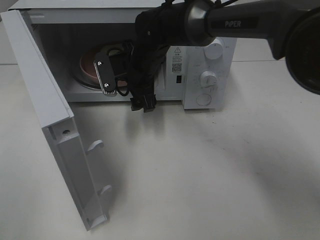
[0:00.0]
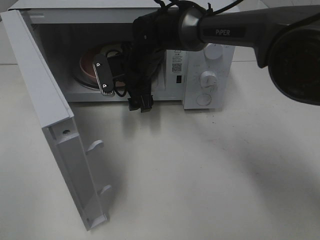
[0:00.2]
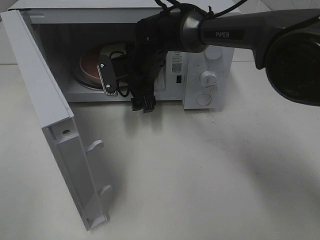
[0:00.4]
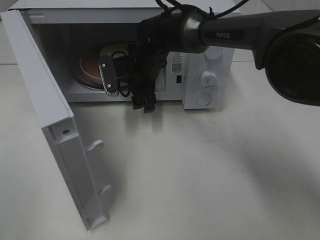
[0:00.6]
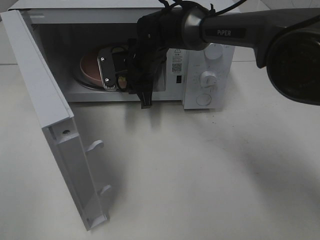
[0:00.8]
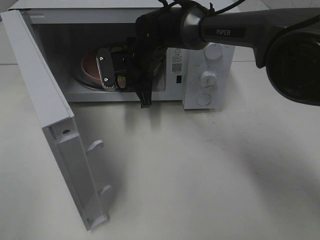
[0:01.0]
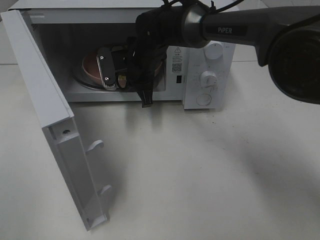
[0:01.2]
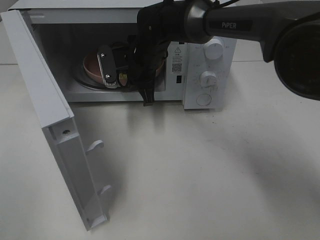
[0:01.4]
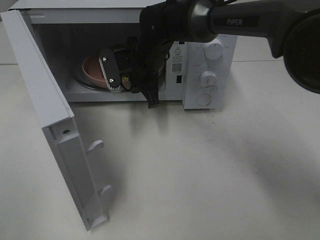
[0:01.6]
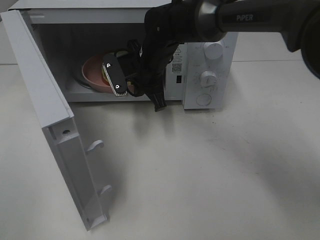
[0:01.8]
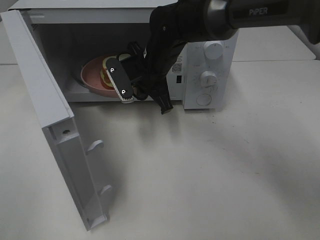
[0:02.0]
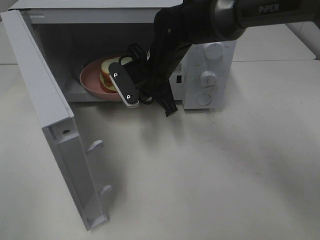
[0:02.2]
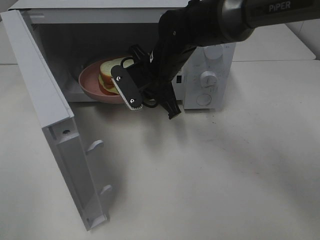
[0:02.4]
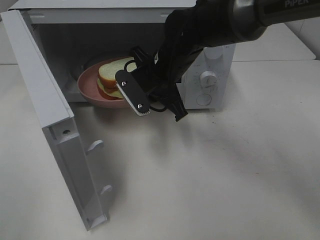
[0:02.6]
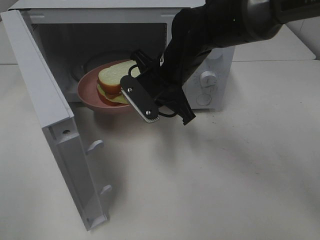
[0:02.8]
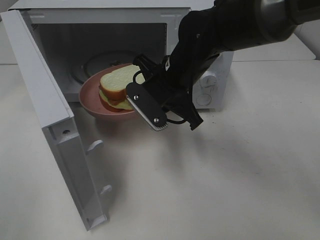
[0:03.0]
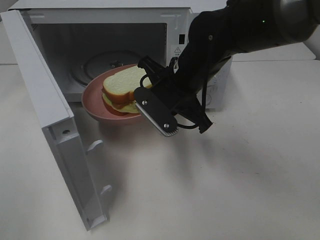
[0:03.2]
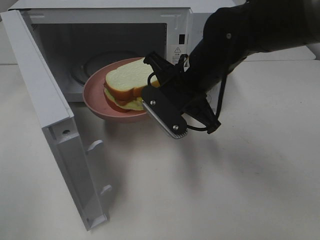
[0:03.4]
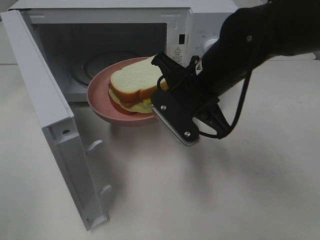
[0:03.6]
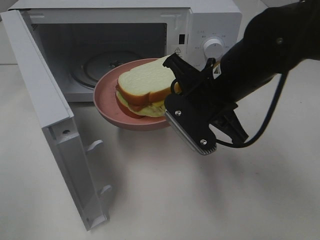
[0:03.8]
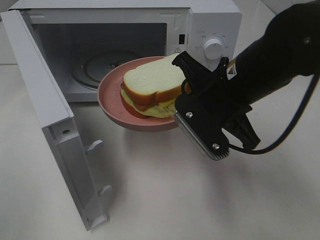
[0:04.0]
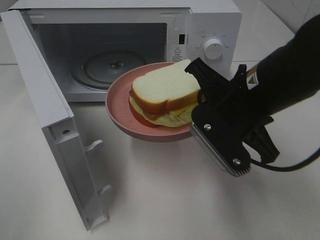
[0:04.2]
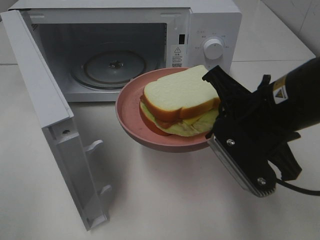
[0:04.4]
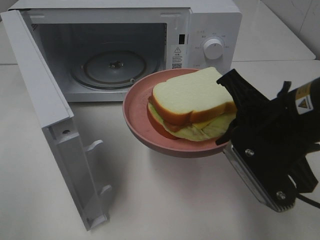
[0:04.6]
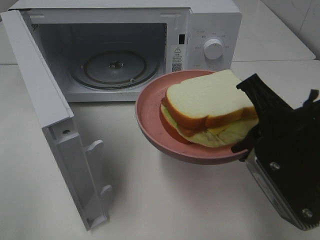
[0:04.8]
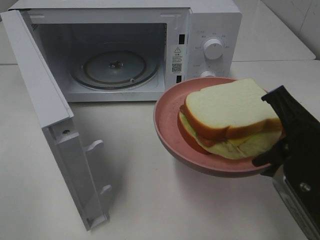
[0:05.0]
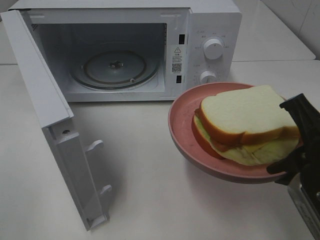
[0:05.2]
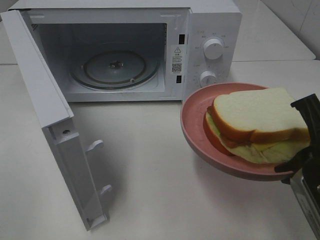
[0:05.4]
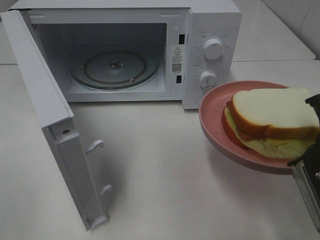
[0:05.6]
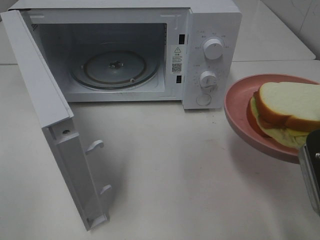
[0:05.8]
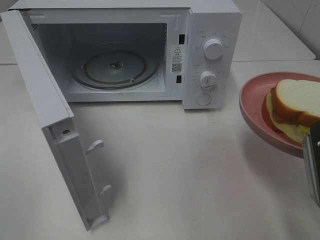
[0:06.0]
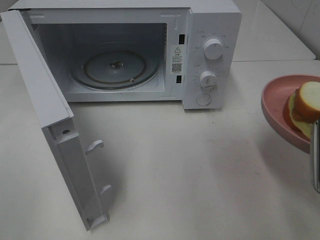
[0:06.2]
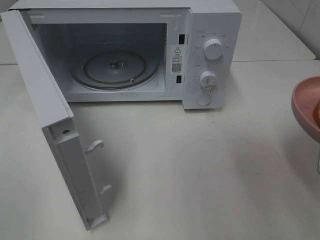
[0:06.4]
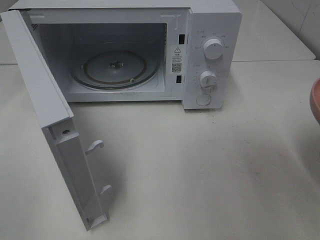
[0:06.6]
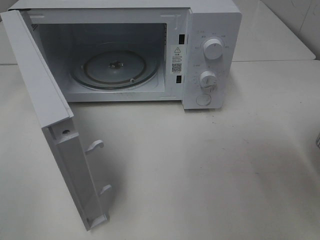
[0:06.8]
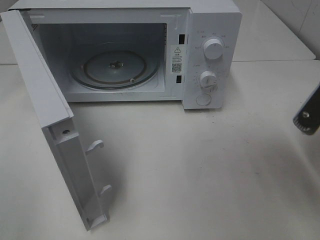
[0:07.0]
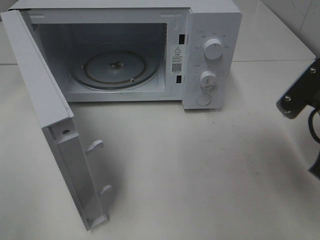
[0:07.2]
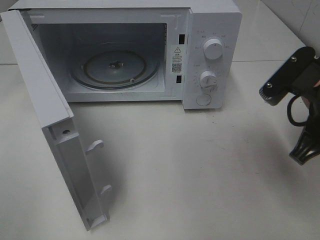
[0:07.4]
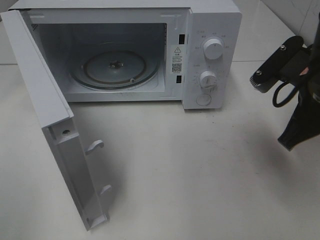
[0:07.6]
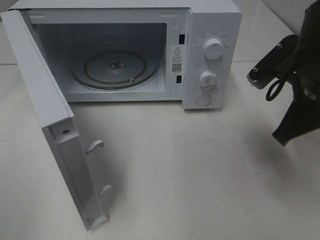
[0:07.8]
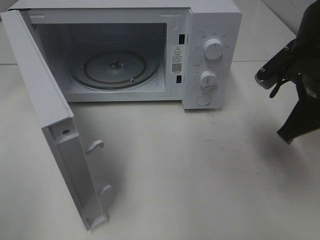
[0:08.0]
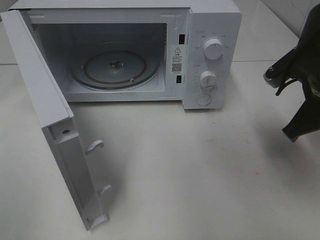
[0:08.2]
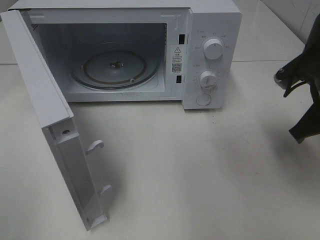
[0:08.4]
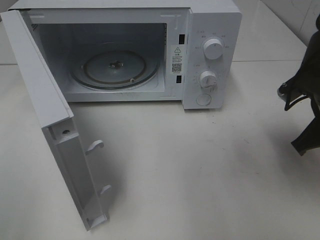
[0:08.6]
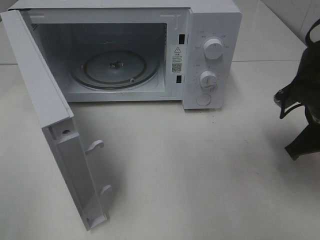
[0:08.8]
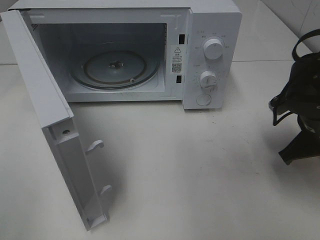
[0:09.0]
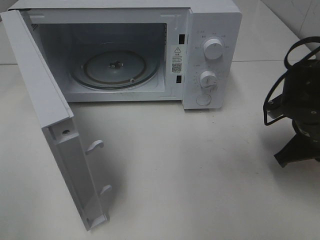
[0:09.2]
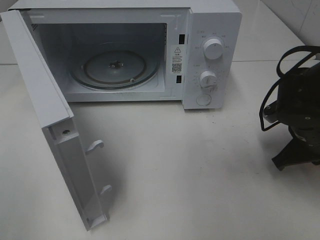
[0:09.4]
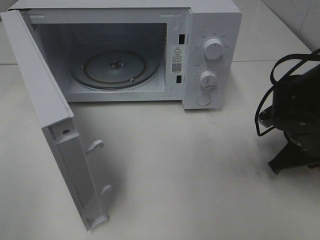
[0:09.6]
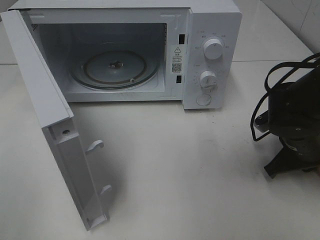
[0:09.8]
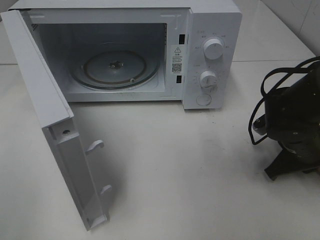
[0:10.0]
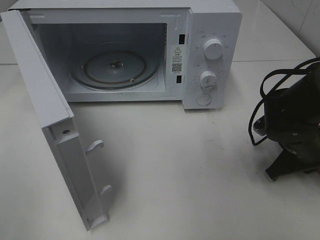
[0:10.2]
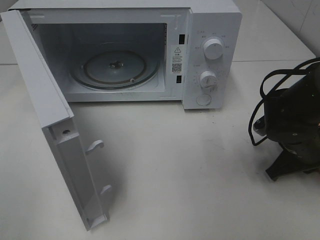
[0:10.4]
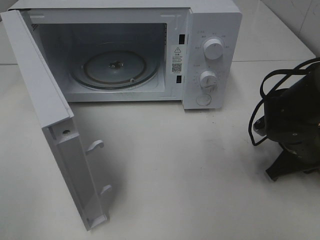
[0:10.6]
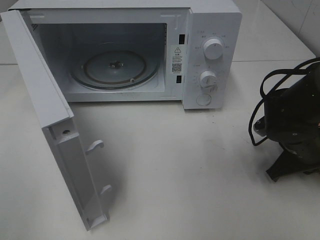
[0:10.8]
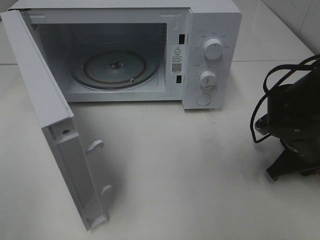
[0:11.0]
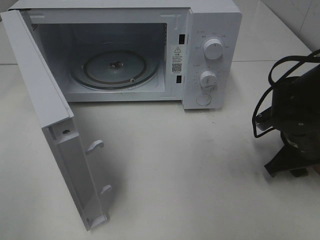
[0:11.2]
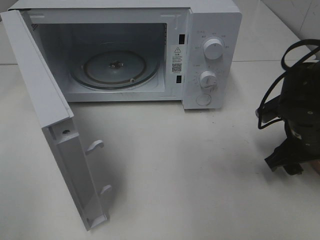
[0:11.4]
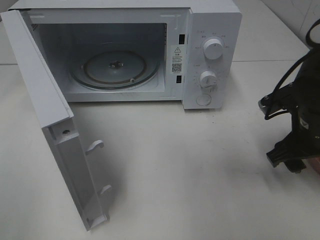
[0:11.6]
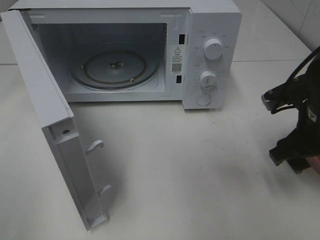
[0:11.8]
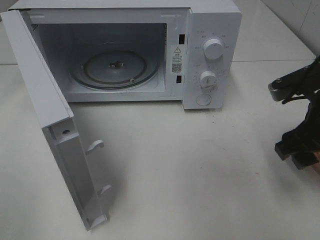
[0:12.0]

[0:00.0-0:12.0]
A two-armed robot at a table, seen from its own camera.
Task of the whole recording: Heat Sandwich.
0:00.0 to 0:01.6: The right gripper closes up.
0:01.6 to 0:03.0: The right gripper moves backward and to the right, some 10 cm.
0:03.0 to 0:04.4: The right gripper is displaced backward and to the right by roughly 15 cm.
0:04.4 to 0:06.0: The right gripper travels to the right and backward by roughly 10 cm.
0:06.0 to 0:07.6: The right gripper shifts some 10 cm forward.
0:07.6 to 0:09.0: The right gripper heads downward, covering roughly 10 cm.
0:09.0 to 0:10.4: The right gripper heads downward, covering some 5 cm.
0:10.4 to 0:12.0: The right gripper travels upward by roughly 10 cm, and opens up.

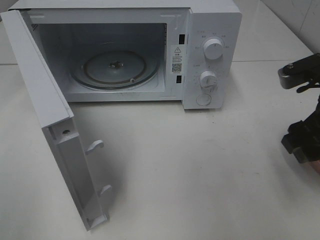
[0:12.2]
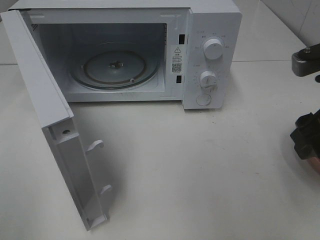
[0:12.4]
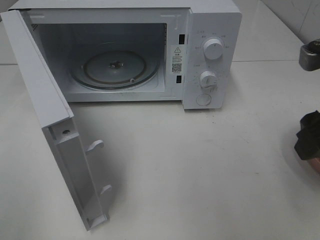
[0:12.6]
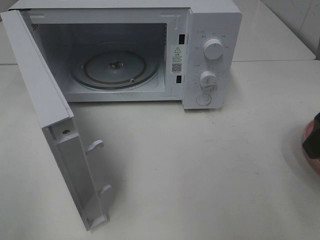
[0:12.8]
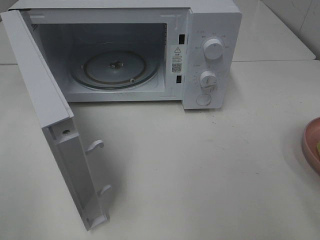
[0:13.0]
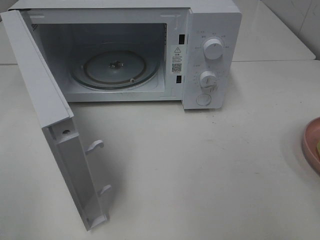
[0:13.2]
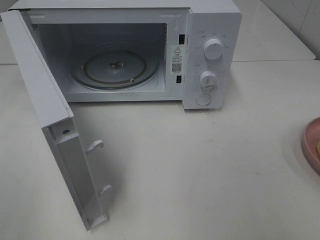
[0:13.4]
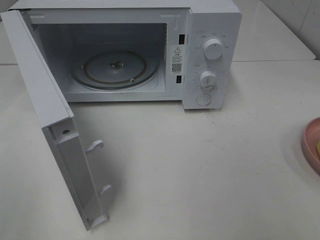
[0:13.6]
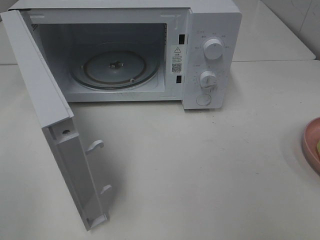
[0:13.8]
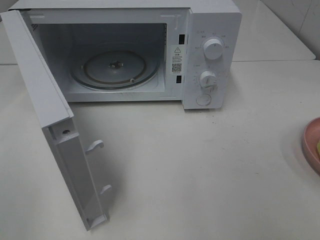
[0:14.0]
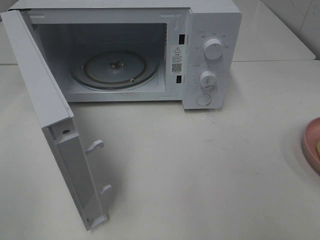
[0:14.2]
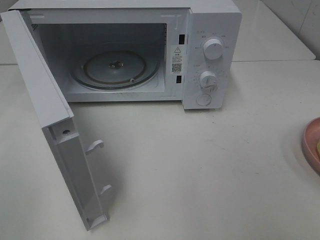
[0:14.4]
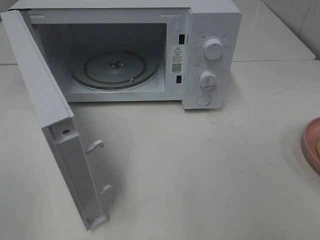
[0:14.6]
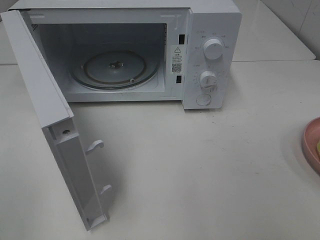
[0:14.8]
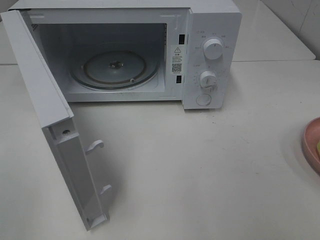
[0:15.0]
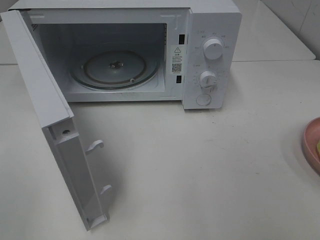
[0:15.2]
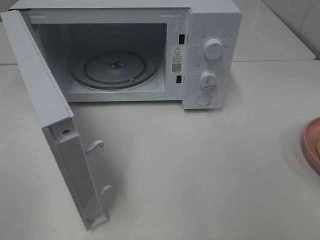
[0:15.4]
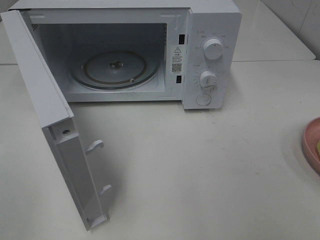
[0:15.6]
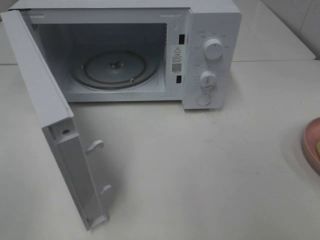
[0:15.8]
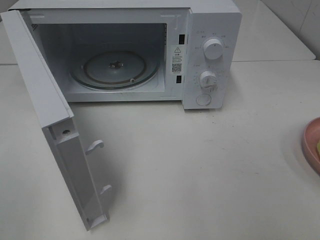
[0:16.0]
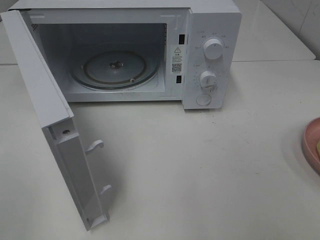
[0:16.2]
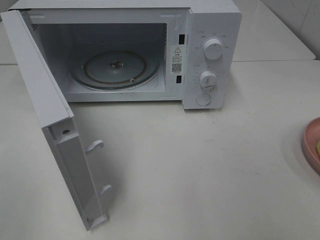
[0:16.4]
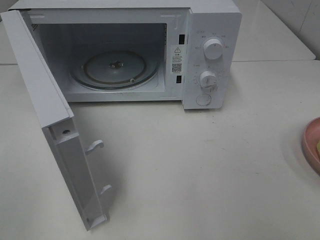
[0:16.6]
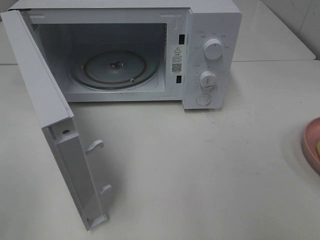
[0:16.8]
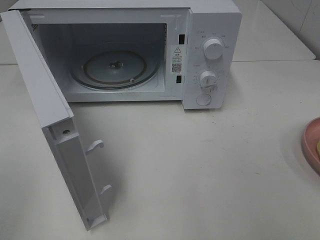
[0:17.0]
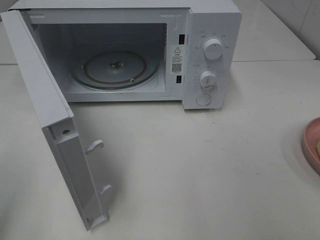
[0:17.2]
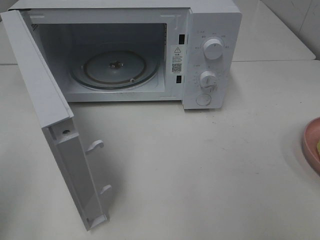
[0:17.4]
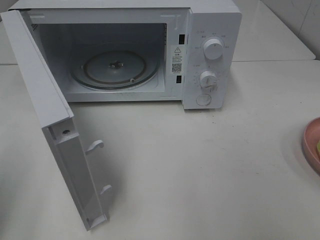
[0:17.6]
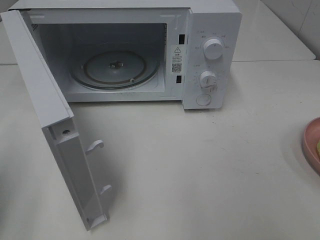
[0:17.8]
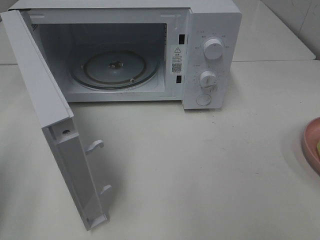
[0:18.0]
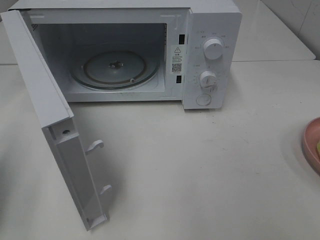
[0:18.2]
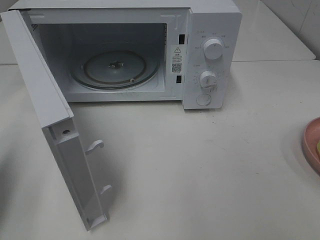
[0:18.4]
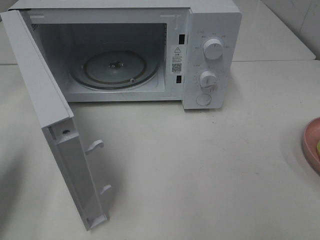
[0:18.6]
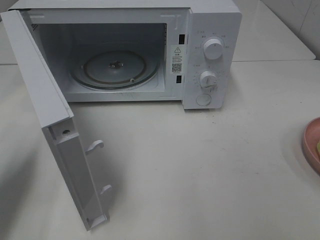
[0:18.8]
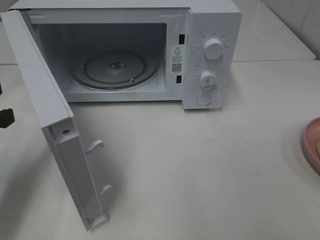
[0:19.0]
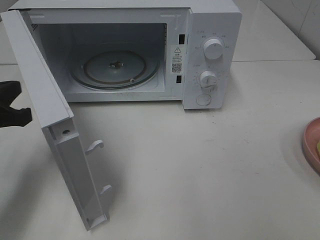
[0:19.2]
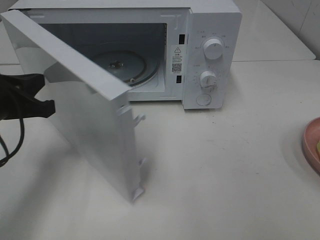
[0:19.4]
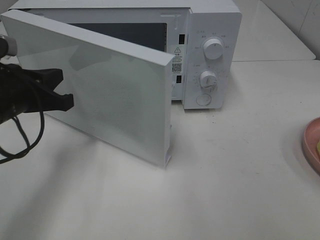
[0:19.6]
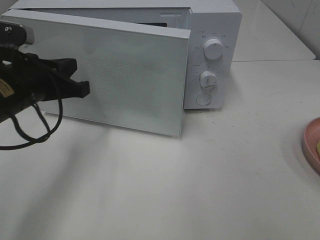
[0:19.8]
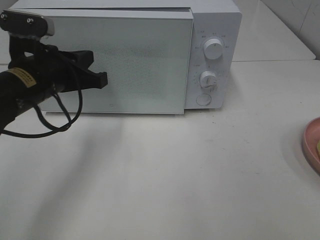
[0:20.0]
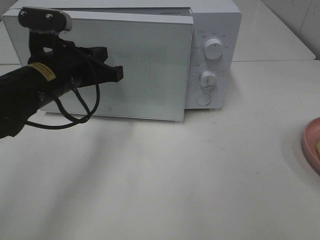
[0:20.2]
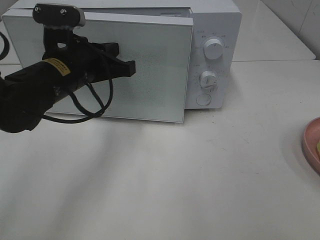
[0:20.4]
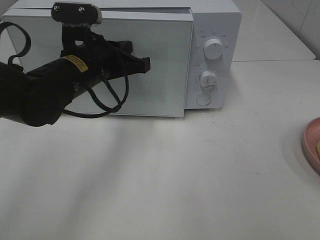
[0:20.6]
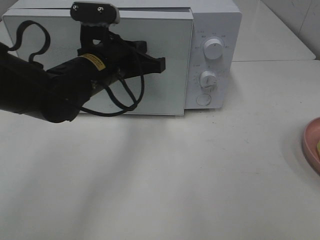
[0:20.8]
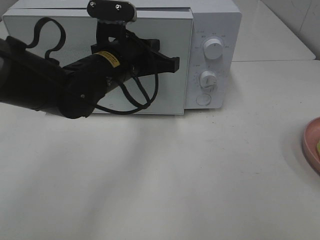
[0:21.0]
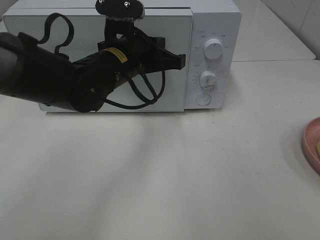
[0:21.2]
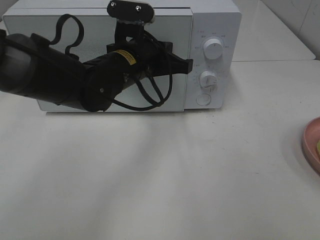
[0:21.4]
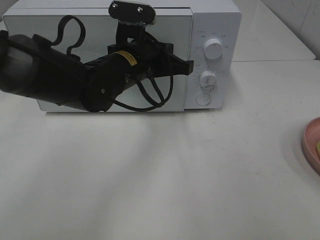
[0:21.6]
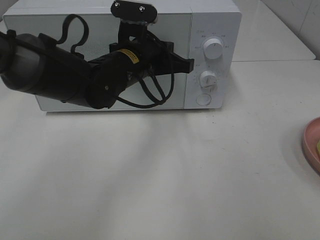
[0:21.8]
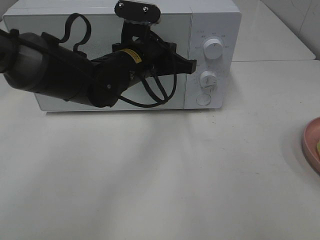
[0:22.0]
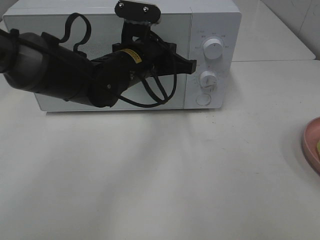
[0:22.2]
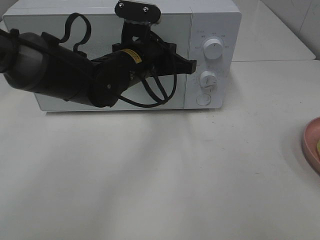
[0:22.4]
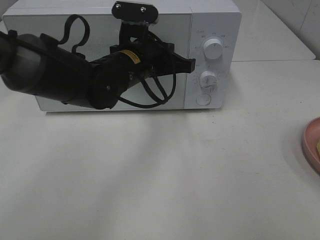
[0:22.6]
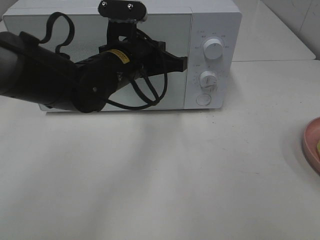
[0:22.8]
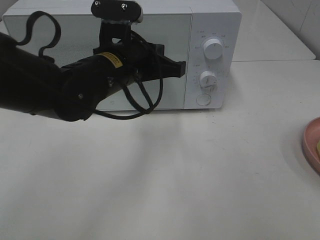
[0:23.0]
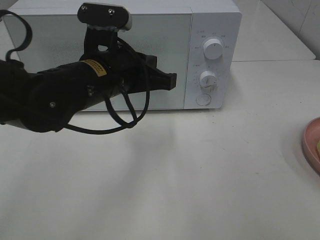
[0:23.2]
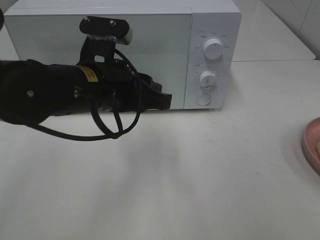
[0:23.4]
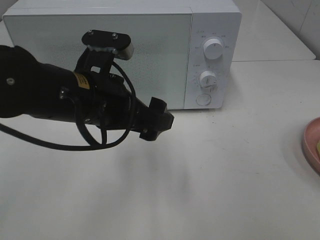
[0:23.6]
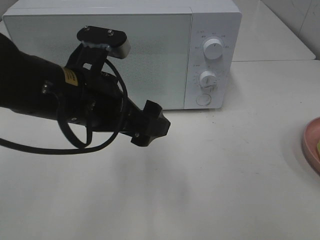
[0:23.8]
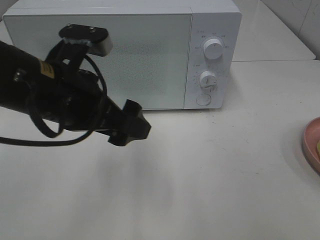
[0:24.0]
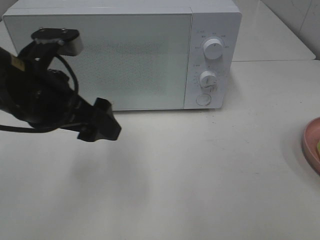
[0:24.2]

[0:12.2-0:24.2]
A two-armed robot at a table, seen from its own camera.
Task of the whole recording: Heat Sandwich.
Step, 0:12.2 to 0:23.0: Left hand: close the microwave door.
0:12.2 to 0:13.8: The right gripper travels backward and upward by some 20 cm.
0:15.2 to 0:16.6: Neither gripper changes place.
0:16.6 to 0:18.2: The left gripper heads forward and downward, covering some 15 cm, and closes up.
0:18.2 to 0:19.8: The left gripper shifts approximately 20 cm to the right and forward.
0:19.8 to 0:21.2: The left gripper goes about 15 cm to the right and forward.
0:21.2 to 0:22.6: The grippers make only small movements.
0:22.6 to 0:24.2: The left gripper shifts about 15 cm to the left, backward and upward, and opens up.
